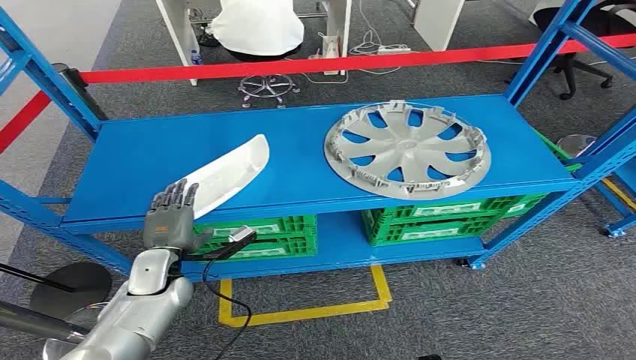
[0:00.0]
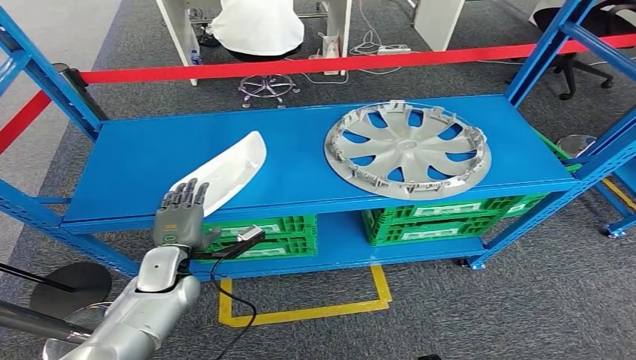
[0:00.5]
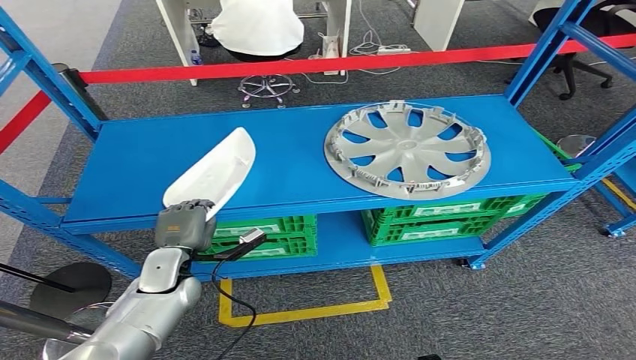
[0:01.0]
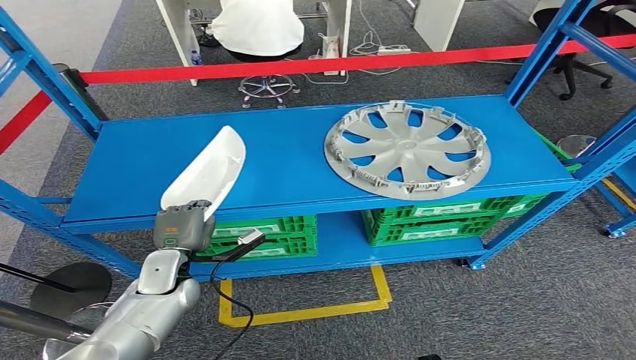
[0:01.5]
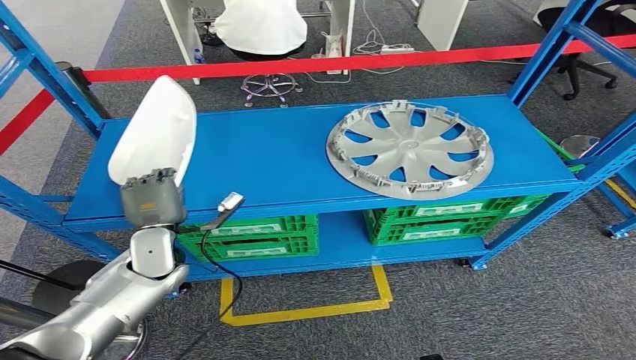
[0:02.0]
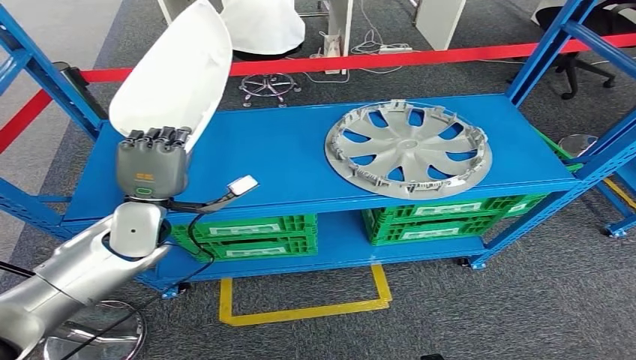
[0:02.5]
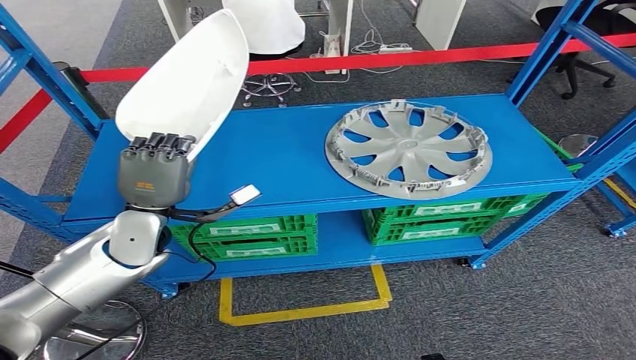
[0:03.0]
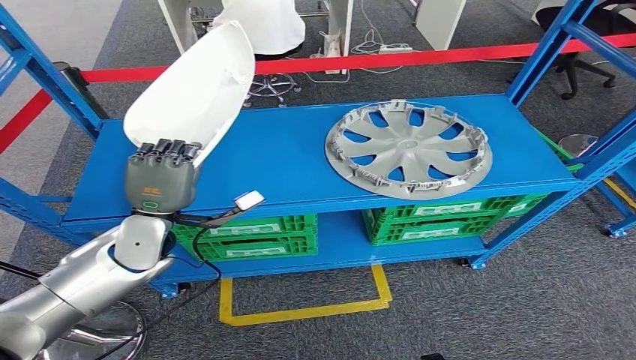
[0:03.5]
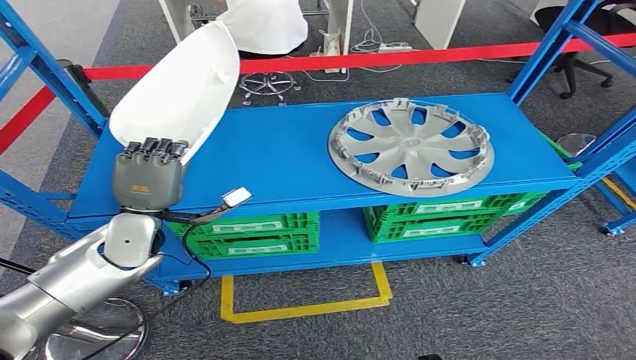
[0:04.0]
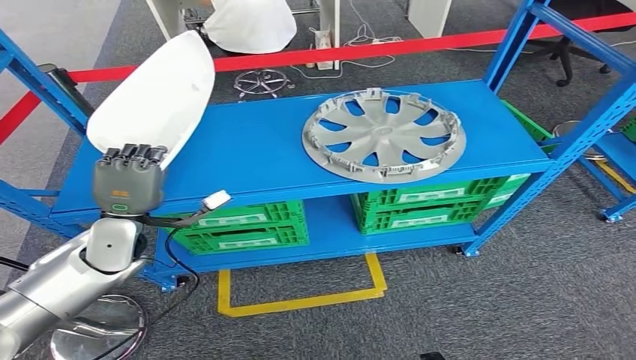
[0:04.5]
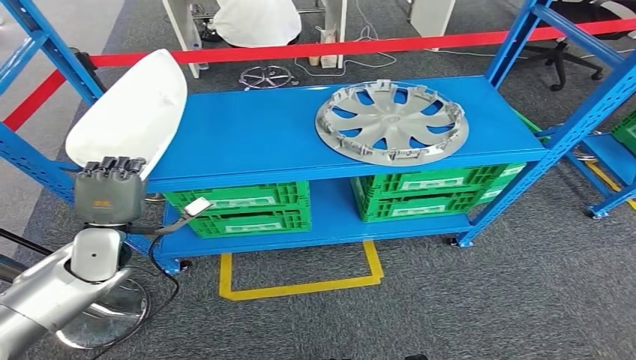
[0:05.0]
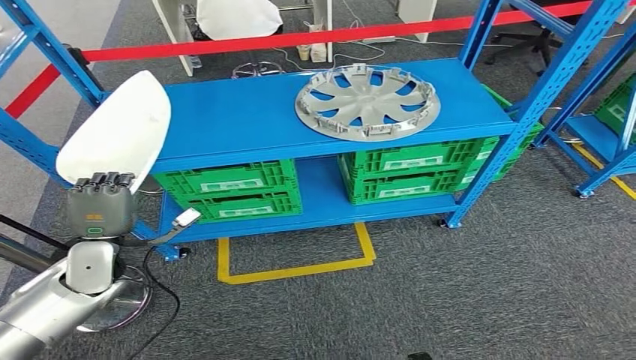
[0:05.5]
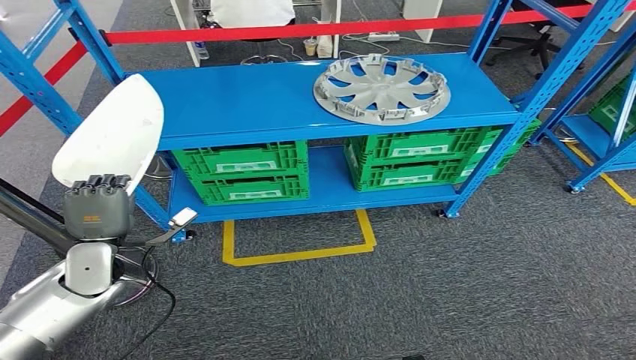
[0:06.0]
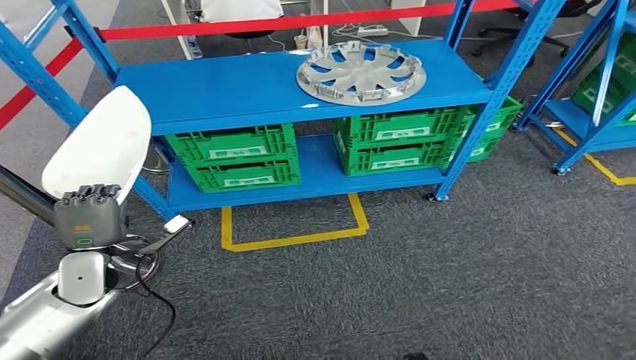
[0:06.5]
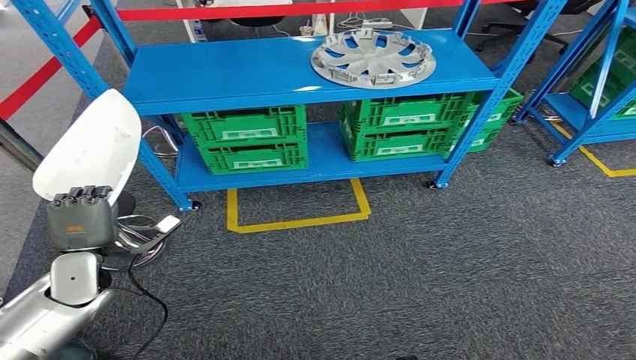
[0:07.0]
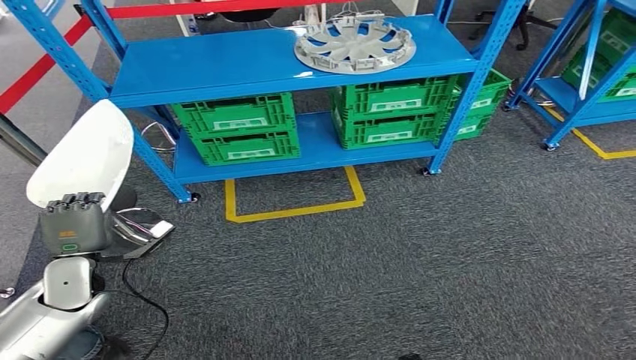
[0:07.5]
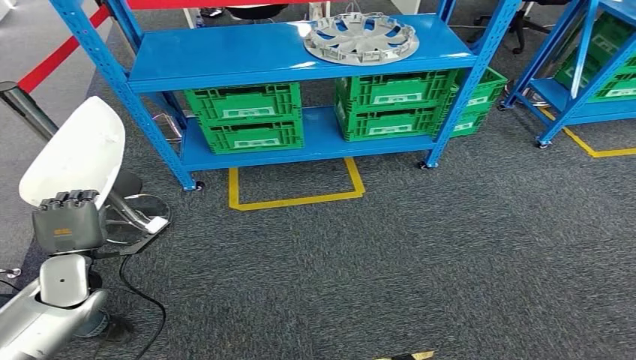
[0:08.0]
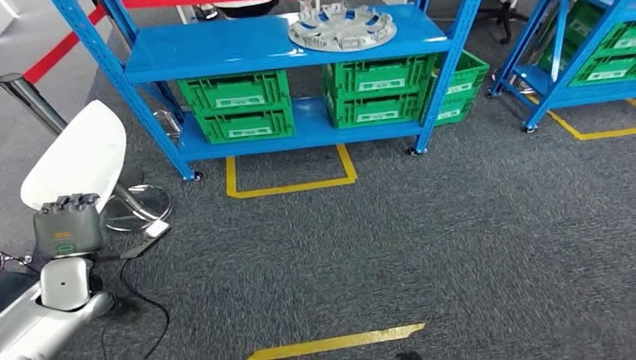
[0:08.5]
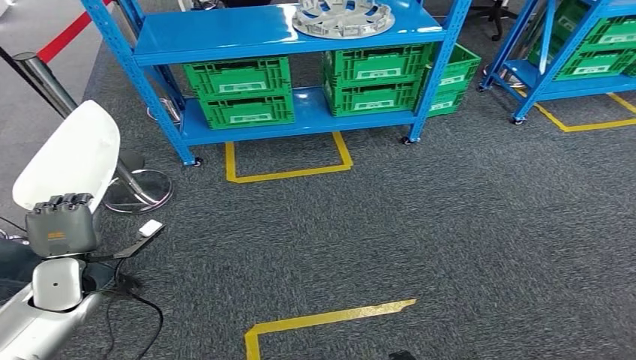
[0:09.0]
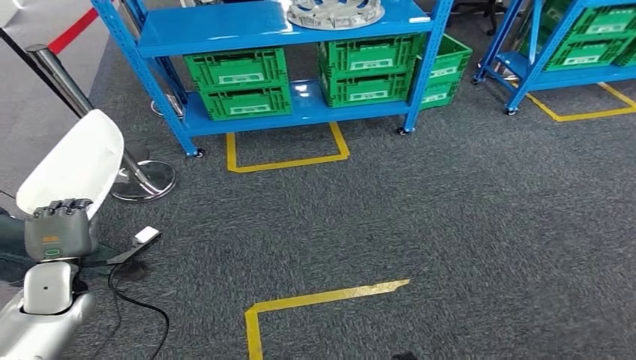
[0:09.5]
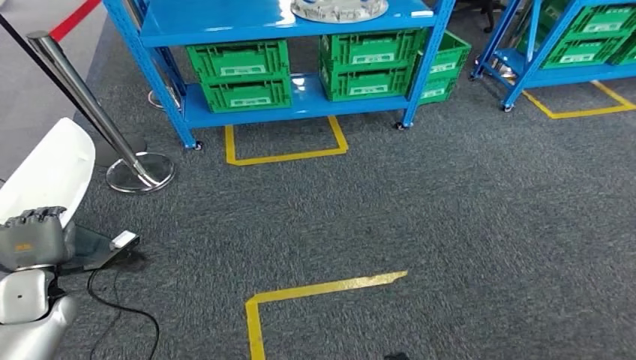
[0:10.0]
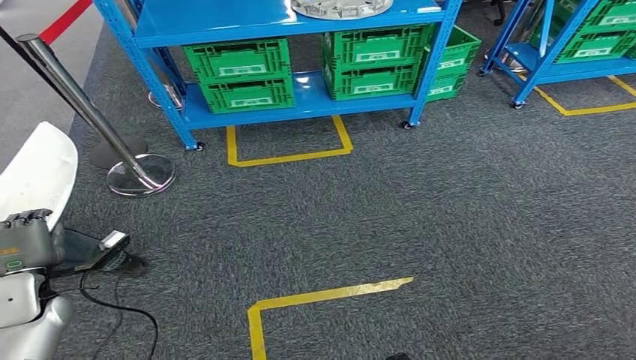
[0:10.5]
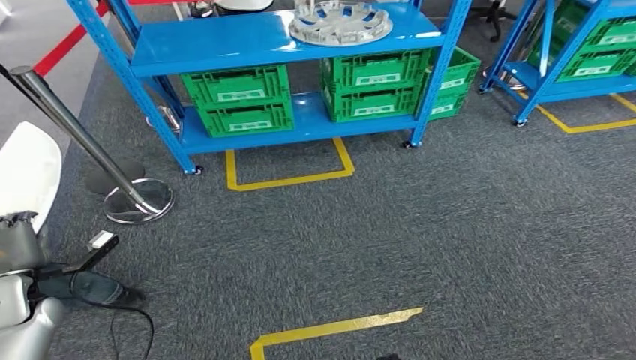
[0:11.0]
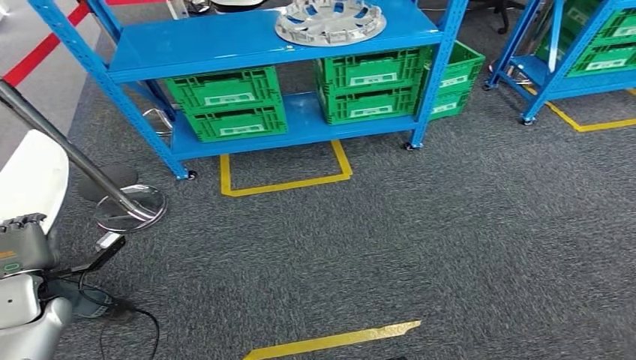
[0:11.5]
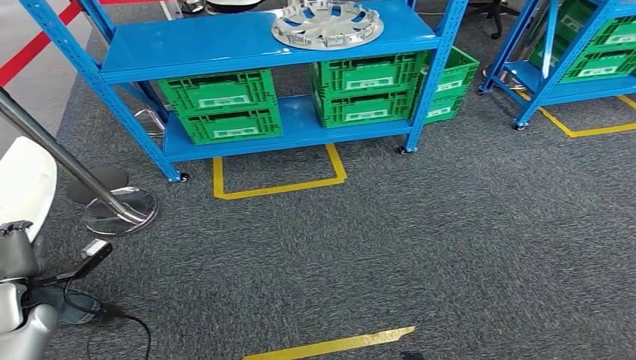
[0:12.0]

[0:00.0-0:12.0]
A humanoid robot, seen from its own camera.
Step, 0:00.0 to 0:02.5: Pick up the small parts from the shelf.

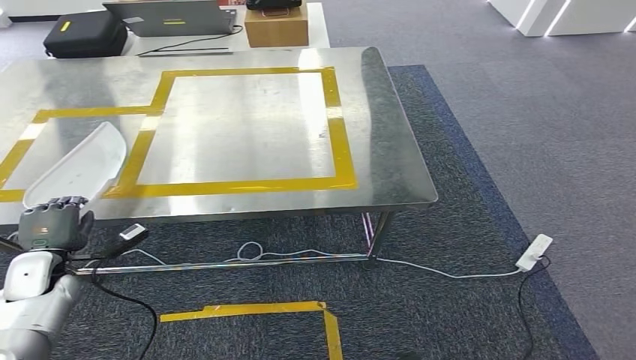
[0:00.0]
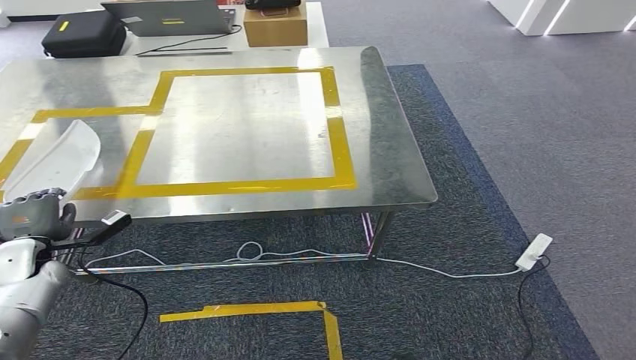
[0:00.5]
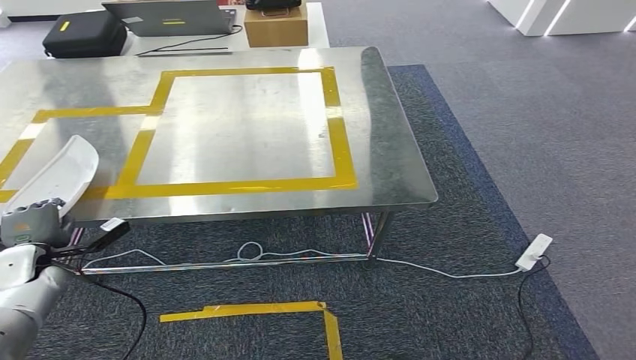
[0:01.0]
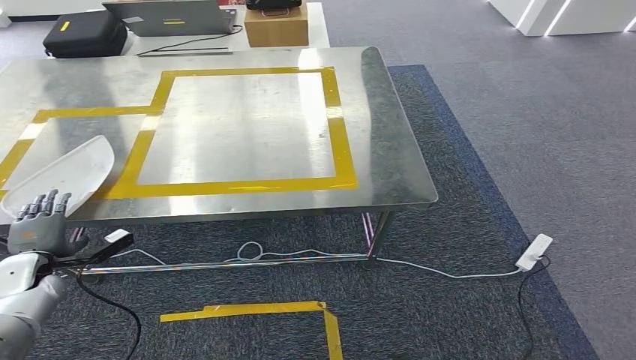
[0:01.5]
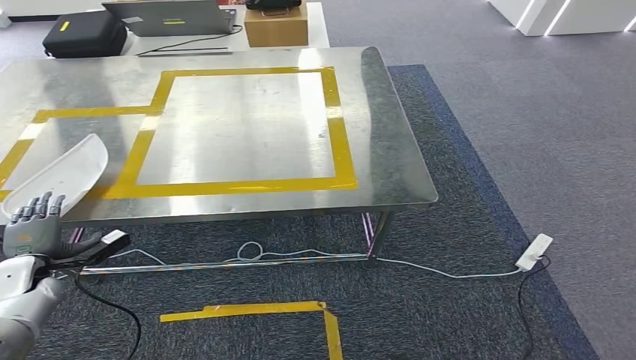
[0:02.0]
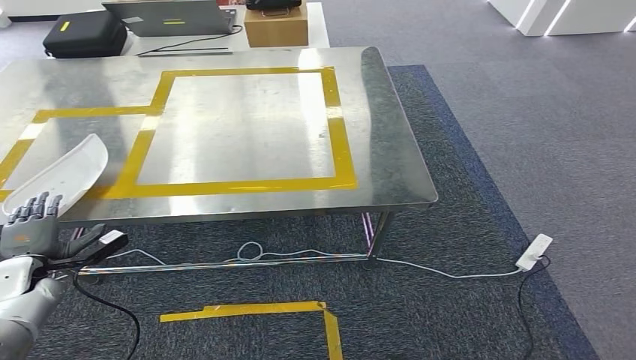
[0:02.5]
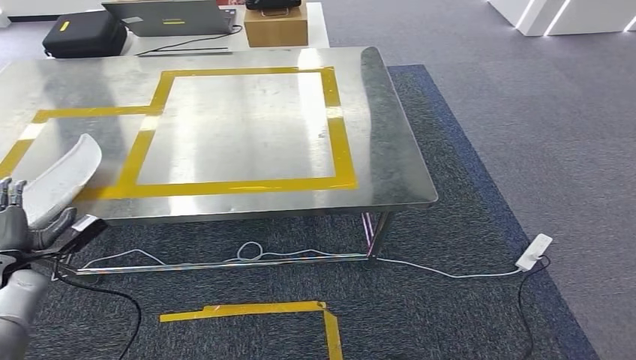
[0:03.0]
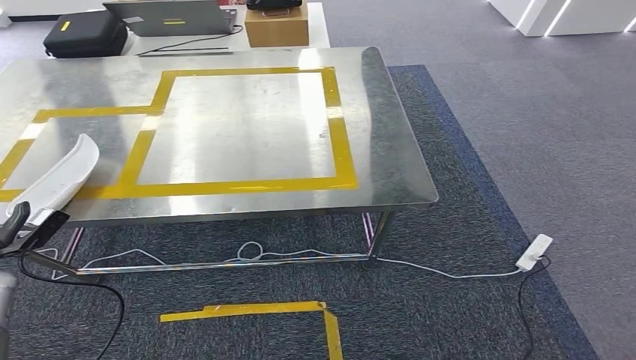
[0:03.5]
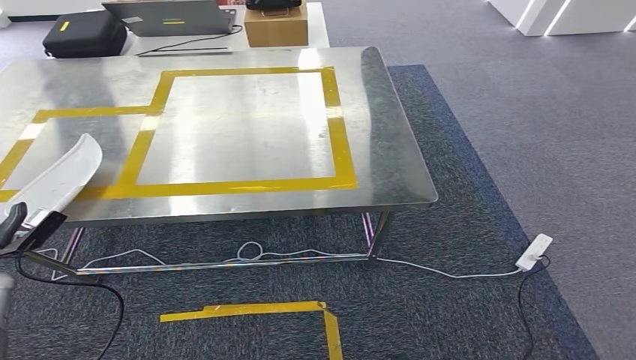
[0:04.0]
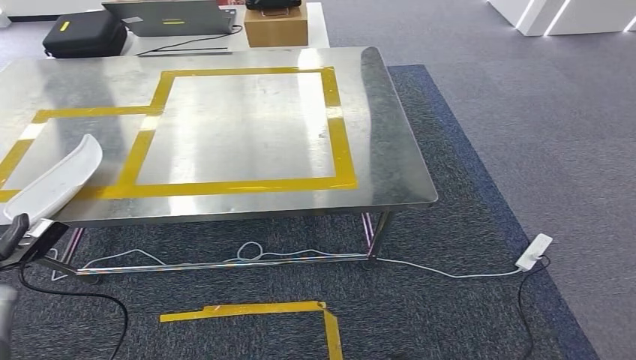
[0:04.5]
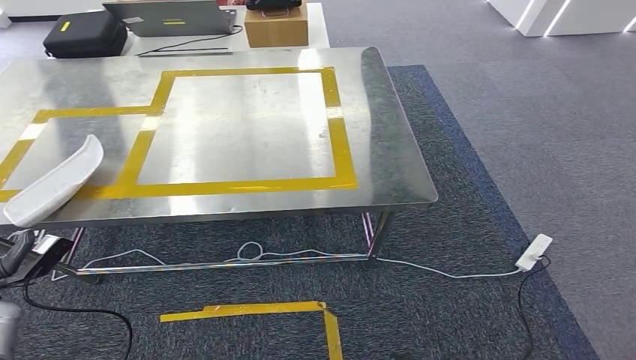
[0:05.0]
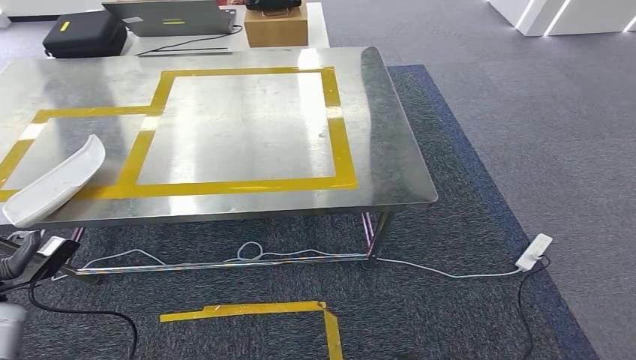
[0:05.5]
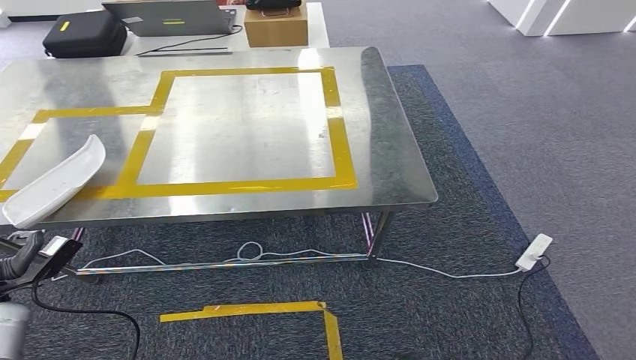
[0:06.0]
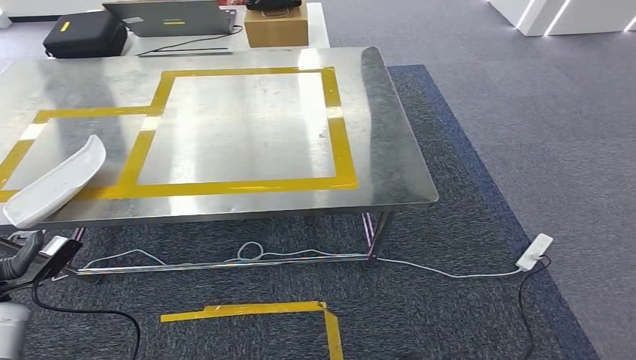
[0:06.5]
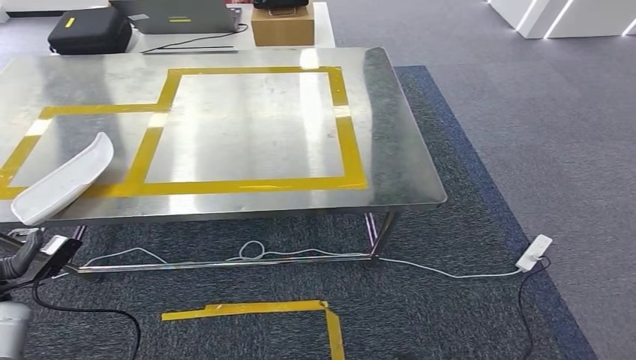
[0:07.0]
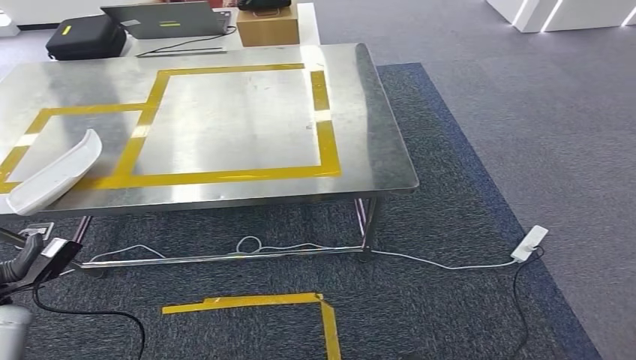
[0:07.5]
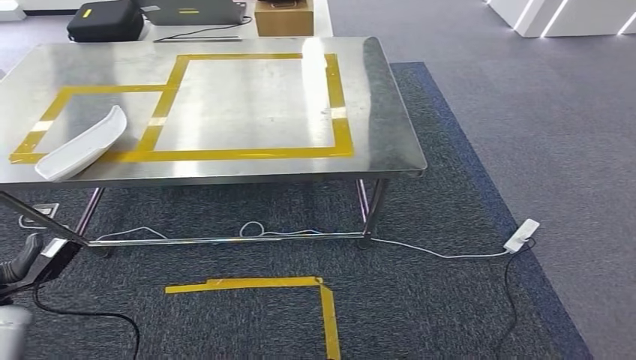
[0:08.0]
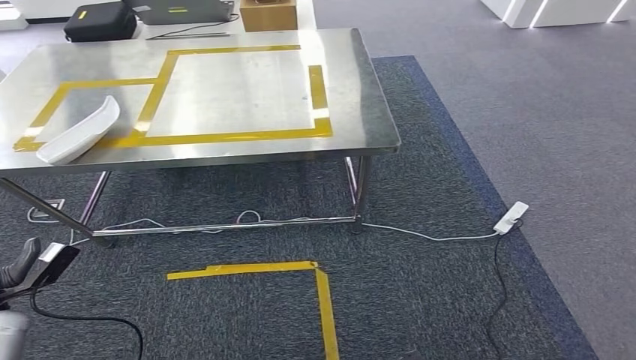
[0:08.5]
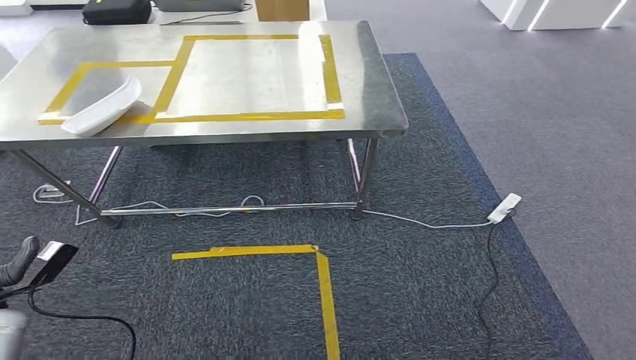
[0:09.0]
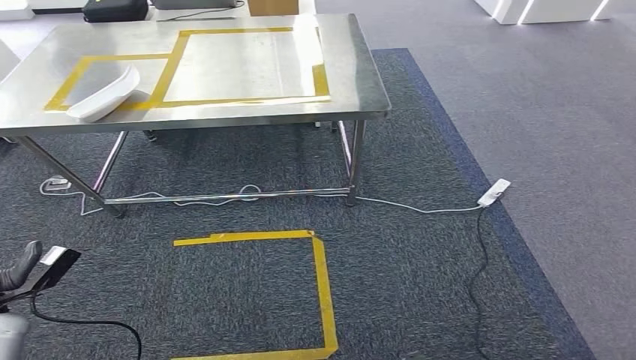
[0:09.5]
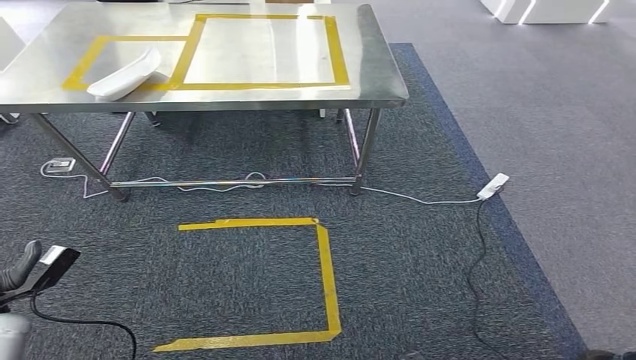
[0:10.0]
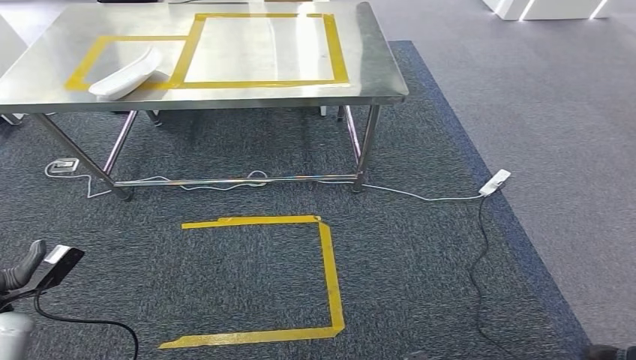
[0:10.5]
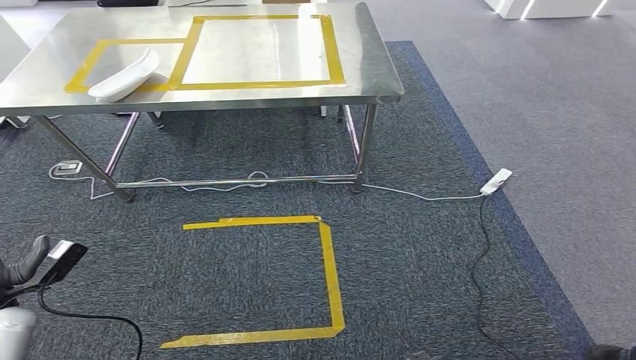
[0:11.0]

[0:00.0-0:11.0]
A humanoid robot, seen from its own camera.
Step, 0:01.0 to 0:03.5: Insert the small parts into the corresponding slots on the workbench.
0:00.0 to 0:02.0: The left hand is displaced to the left by roughly 5 cm.
0:02.0 to 0:03.5: The left hand moves roughly 5 cm.
0:03.5 to 0:05.5: The left hand travels backward by roughly 5 cm.
0:05.5 to 0:07.5: Both hands stay put.
